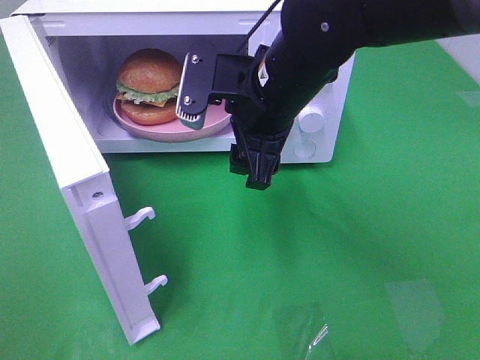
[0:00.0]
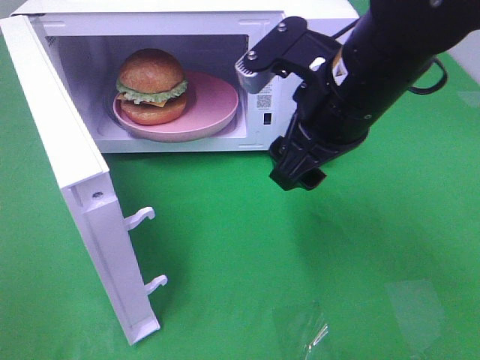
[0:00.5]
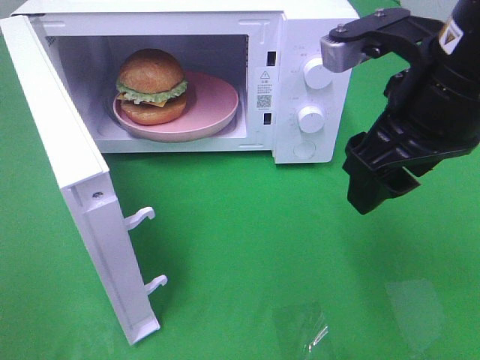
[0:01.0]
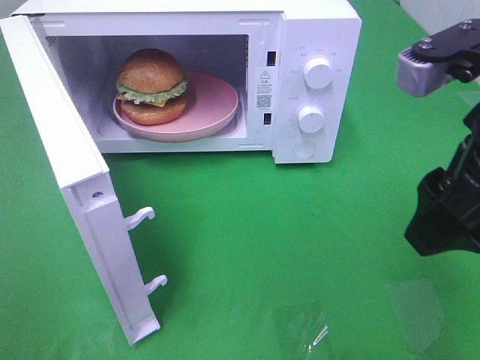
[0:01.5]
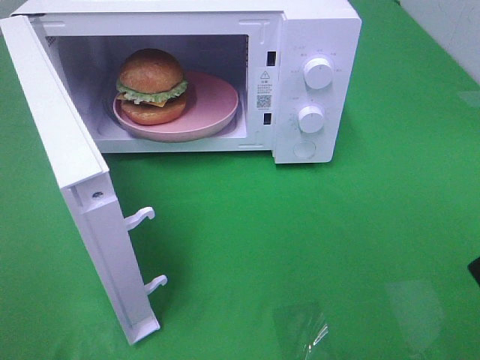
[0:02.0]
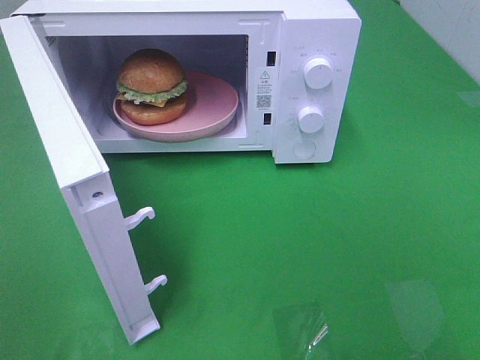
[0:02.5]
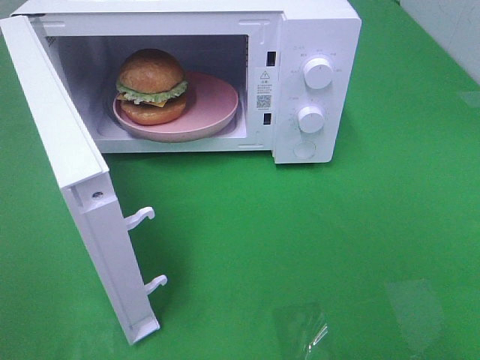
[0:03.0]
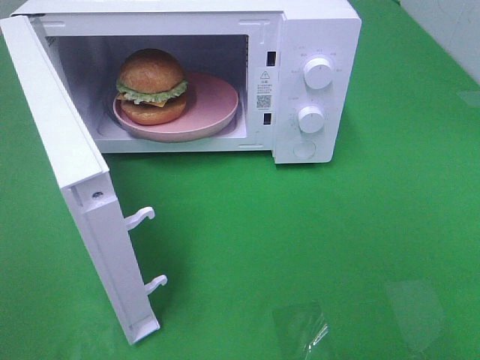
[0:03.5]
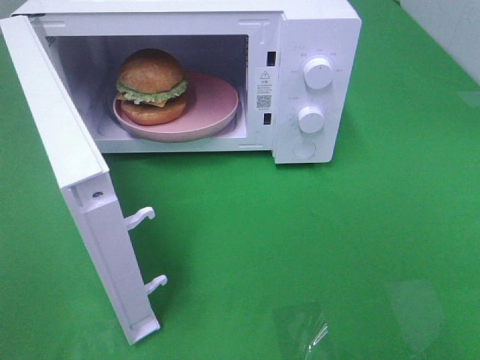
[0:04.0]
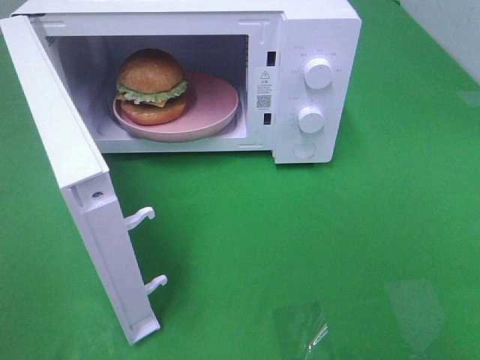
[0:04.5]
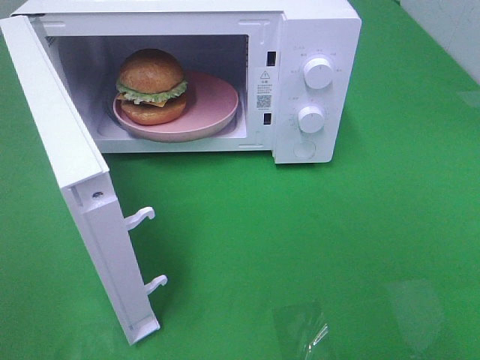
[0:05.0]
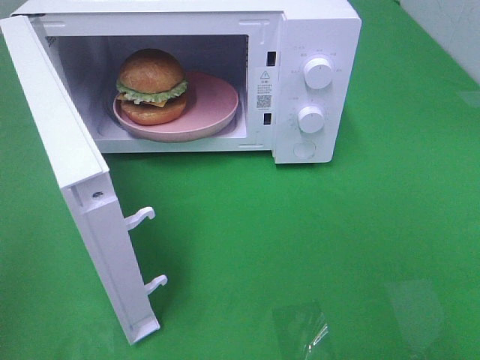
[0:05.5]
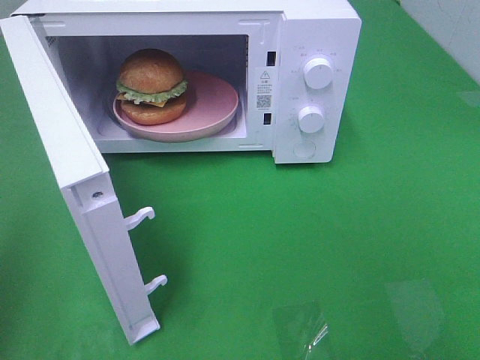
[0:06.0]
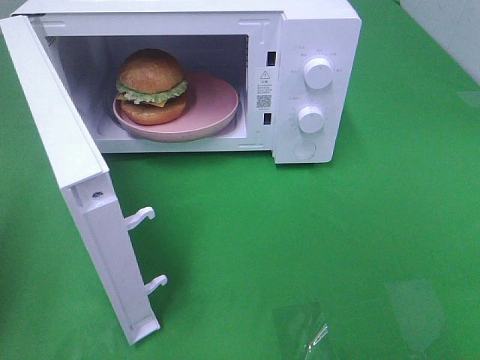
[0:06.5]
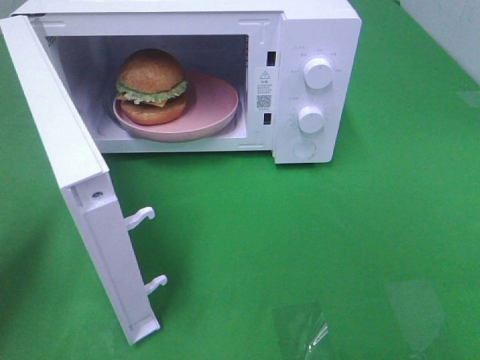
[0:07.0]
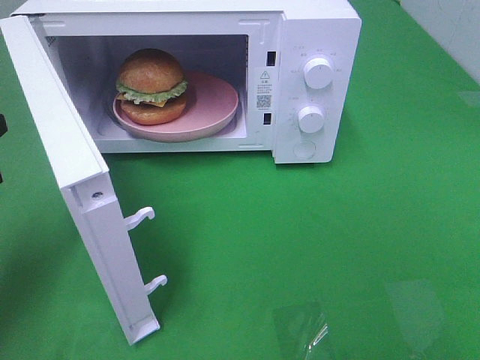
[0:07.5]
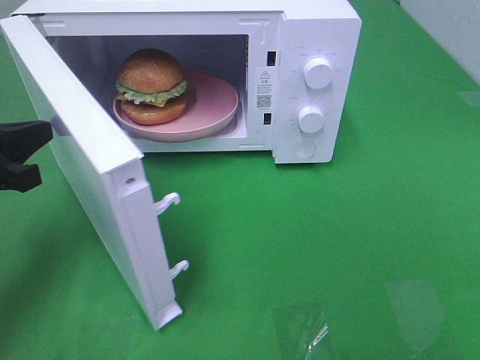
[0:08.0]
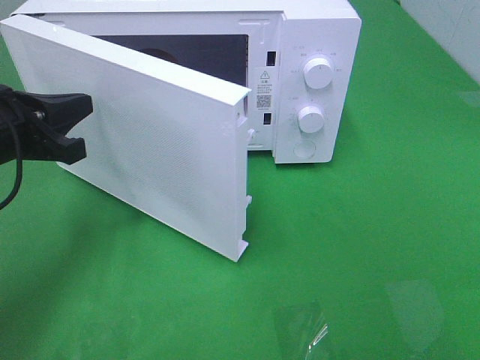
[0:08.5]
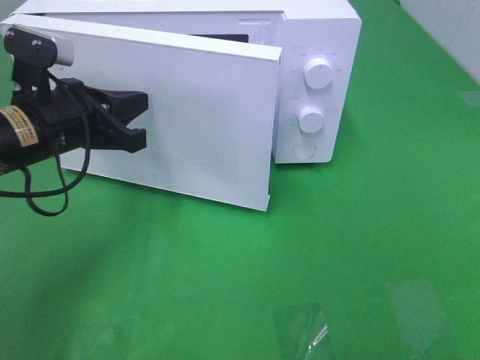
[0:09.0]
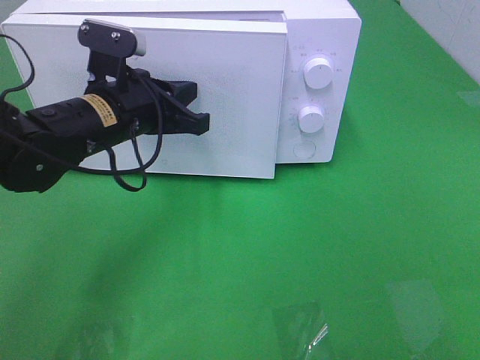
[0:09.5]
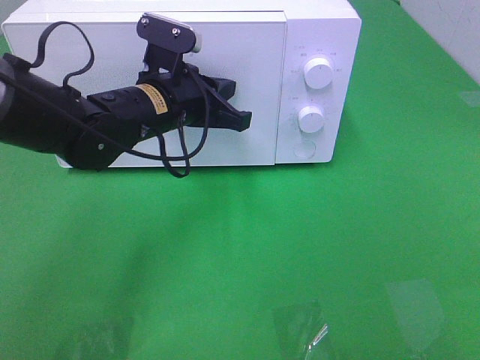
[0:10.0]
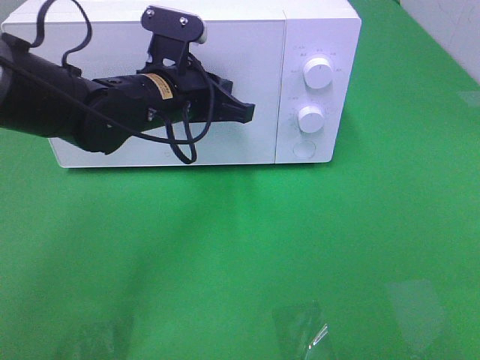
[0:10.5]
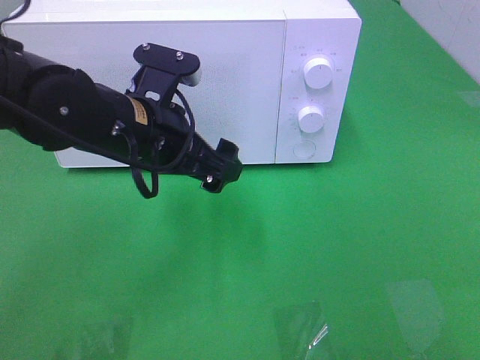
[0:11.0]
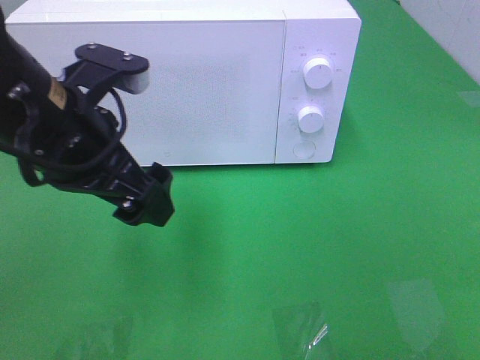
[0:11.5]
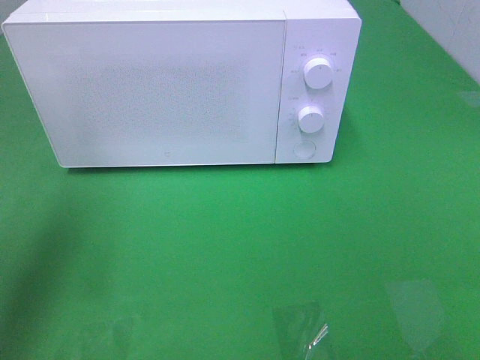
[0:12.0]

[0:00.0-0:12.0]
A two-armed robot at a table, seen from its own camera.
Task of the whole recording: Heat the burger.
Step, 0:00.0 to 0:10.5: Left hand: close the microwave door.
0:00.0 to 0:02.0: The right gripper moves to the right and backward, approximately 25 cm.
0:06.0 to 0:08.0: The left gripper goes approximately 20 cm forward, downward and to the right.
0:08.0 to 0:10.0: The left gripper heads to the right and forward, covering approximately 20 cm.
0:10.0 to 0:12.0: The left gripper is displaced to the left, upward and backward by approximately 25 cm, and opens its fingers.

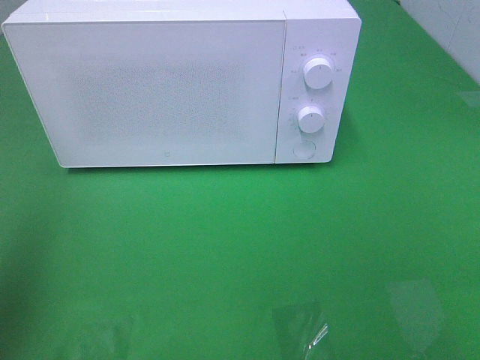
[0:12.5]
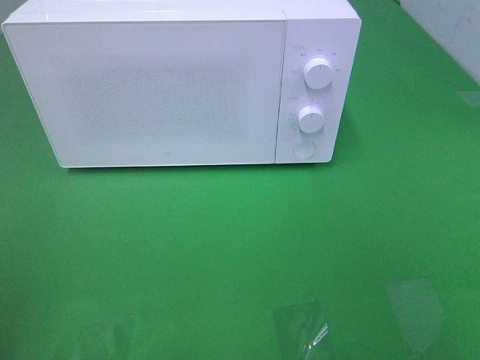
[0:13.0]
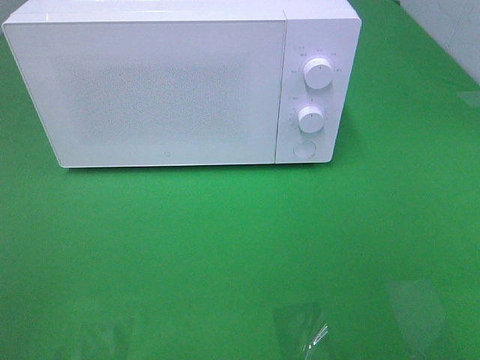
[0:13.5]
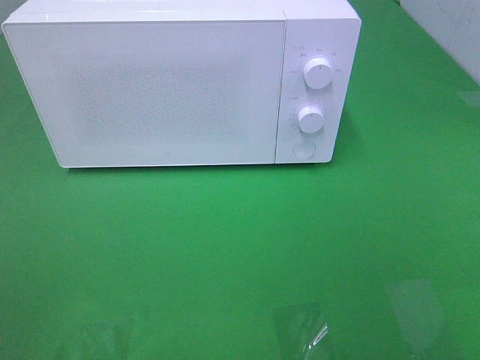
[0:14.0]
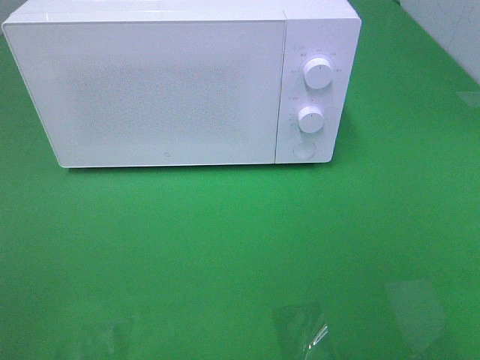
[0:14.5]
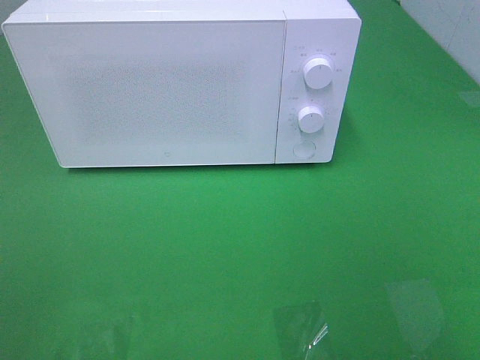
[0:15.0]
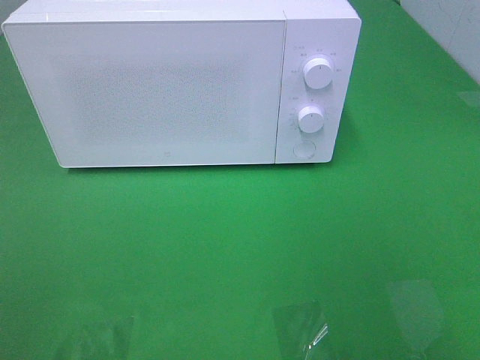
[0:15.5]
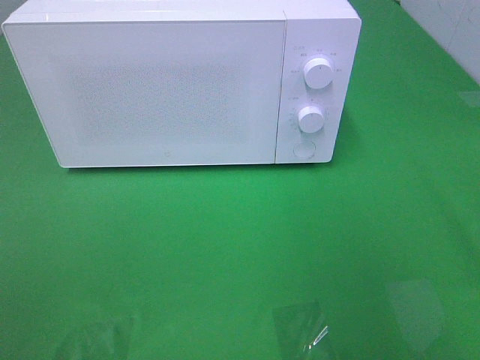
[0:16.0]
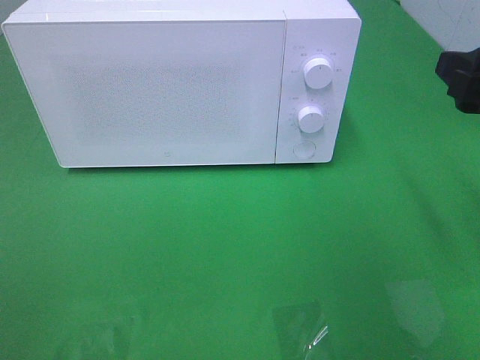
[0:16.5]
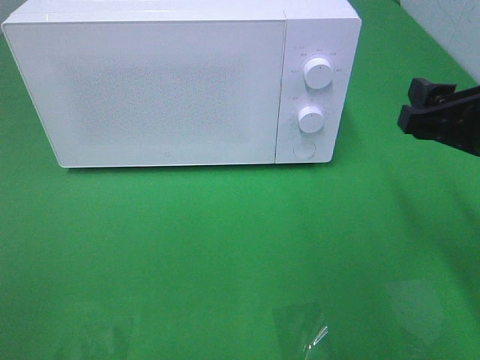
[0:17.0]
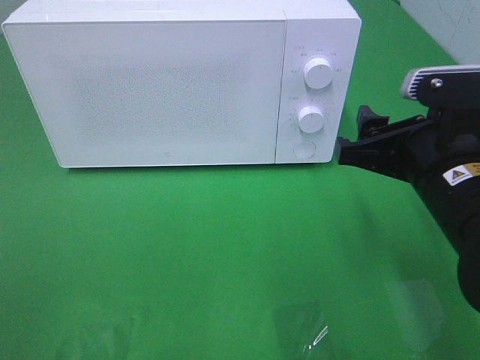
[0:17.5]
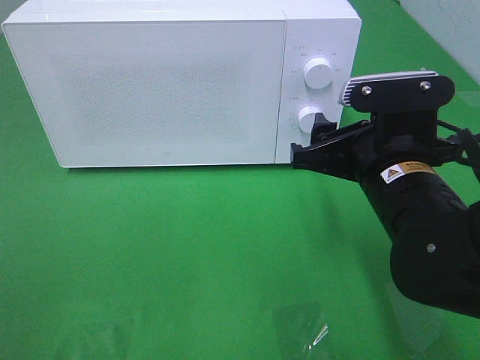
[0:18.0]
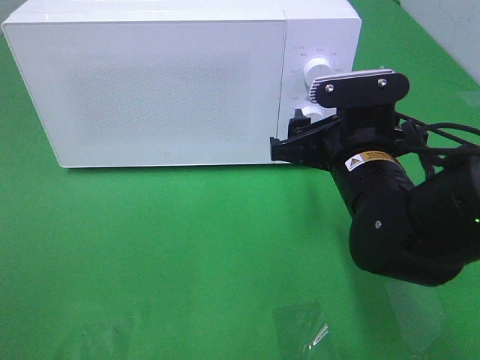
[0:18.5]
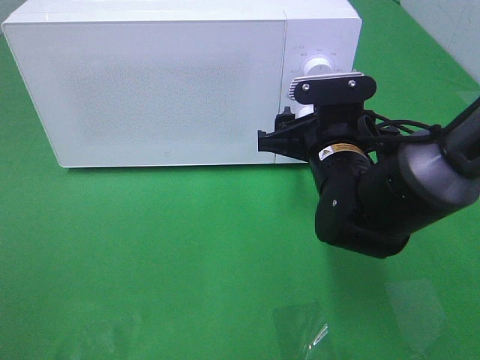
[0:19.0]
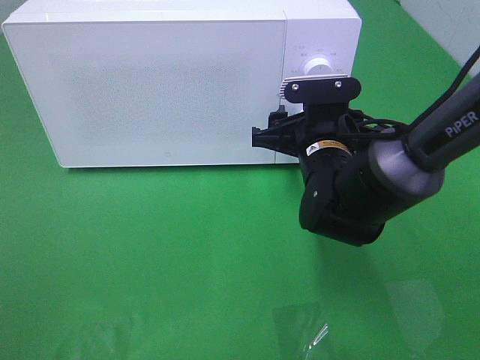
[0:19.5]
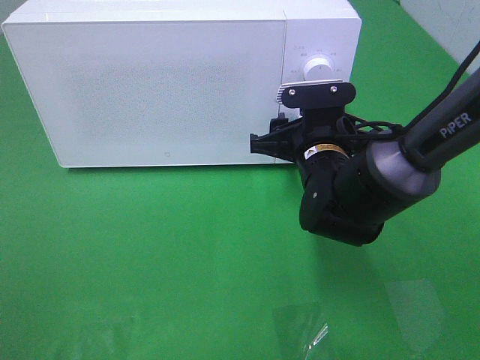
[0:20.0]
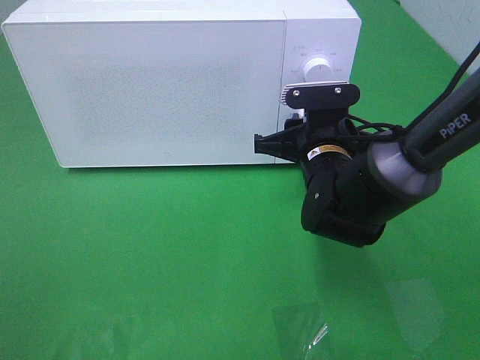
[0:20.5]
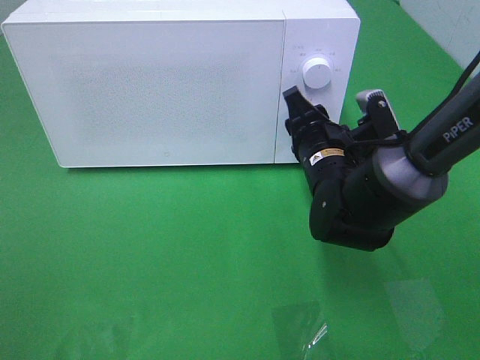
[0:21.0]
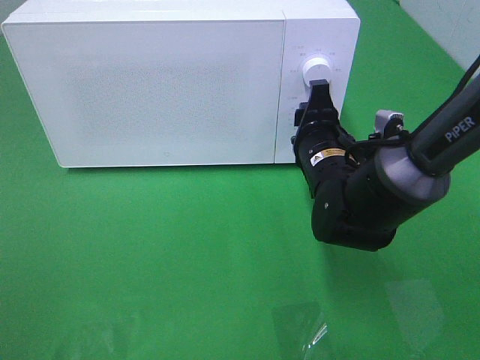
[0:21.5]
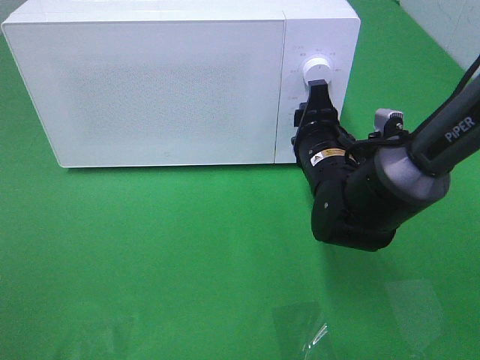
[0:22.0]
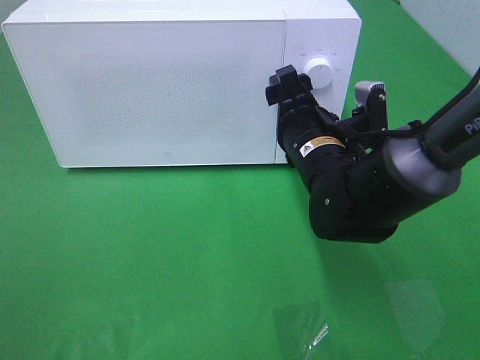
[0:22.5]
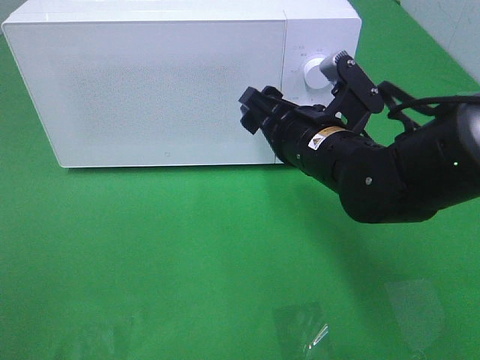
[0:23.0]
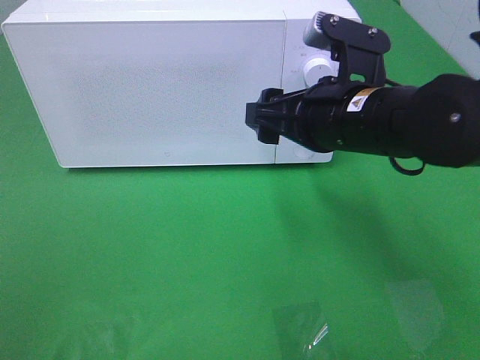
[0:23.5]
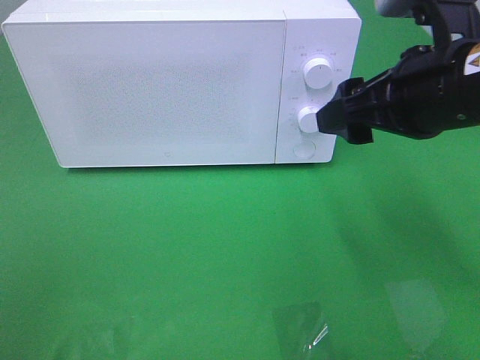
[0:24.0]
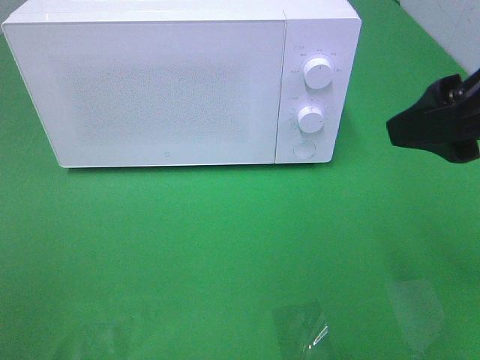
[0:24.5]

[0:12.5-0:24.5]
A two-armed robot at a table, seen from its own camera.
Task of the whole recording: Heat the burger.
Step, 0:12.5 to 0:22.0: Right hand: twist timer button.
0:12.5 to 0:14.5: The left gripper travels backward by approximately 15 cm.
0:14.5 to 0:16.5: The right gripper goes roughly 20 cm forward.
0:16.5 to 0:18.5: The right gripper moves to the left and downward, roughly 15 cm.
0:18.5 to 0:20.5: The right gripper heads forward, covering about 5 cm, and closes.
0:20.5 to 0:22.5: The right gripper opens its fingers.
0:22.5 to 0:24.5: The right gripper goes about 25 cm upward, backward and to the right.

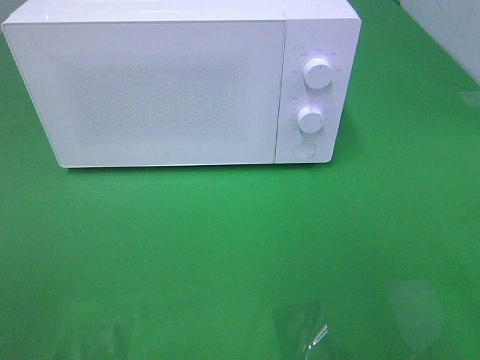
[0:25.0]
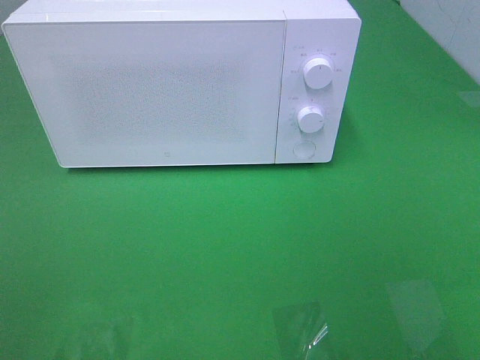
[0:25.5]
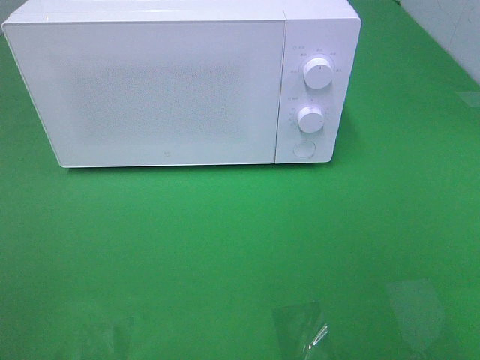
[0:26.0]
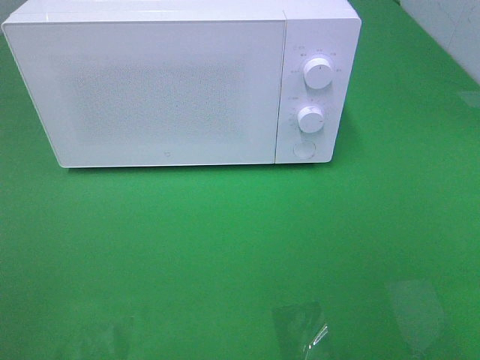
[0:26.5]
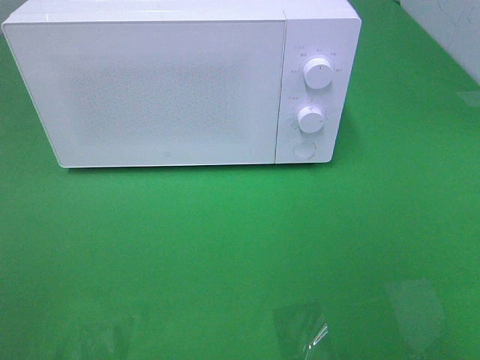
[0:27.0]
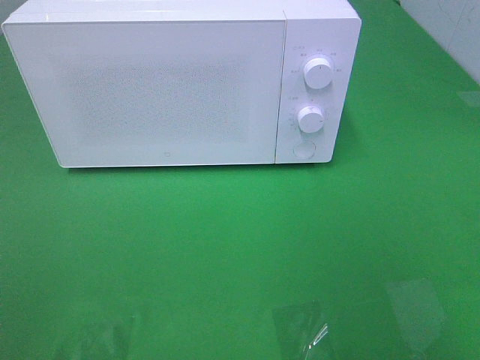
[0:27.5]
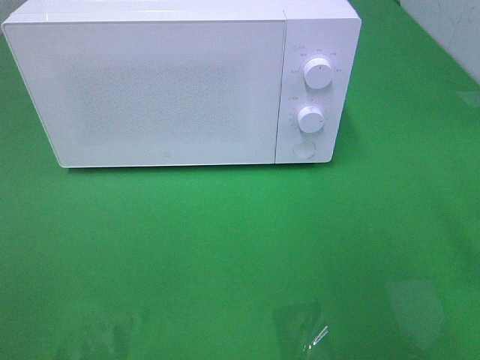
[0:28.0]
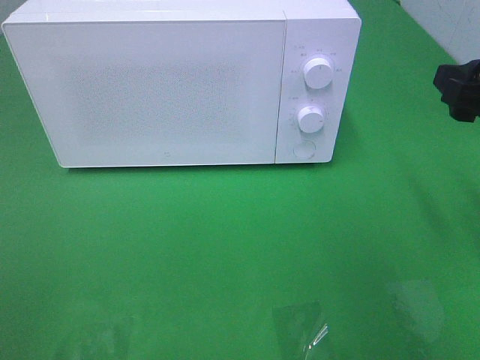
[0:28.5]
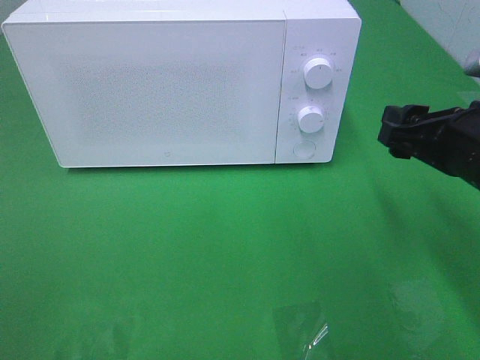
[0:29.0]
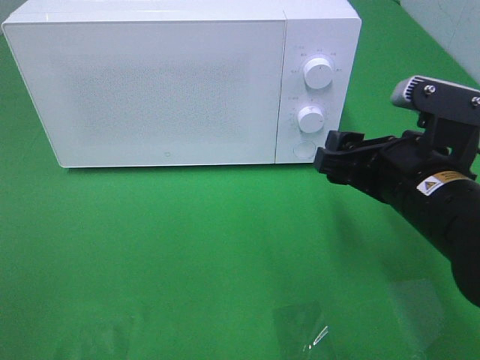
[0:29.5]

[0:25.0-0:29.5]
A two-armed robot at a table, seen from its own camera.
Task of the whole recording: Heat the burger.
0:27.0 to 0:29.5: The right gripper shifts some 25 cm forward, downward and to the left.
